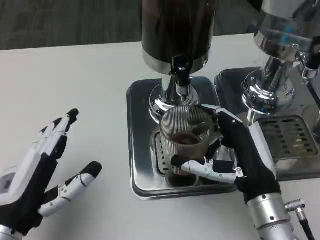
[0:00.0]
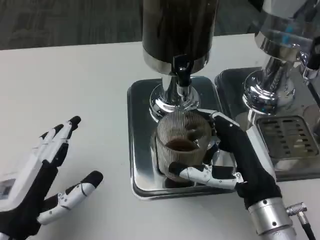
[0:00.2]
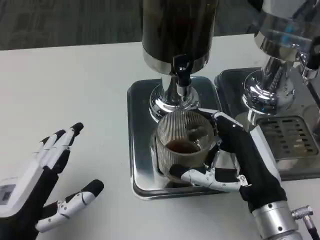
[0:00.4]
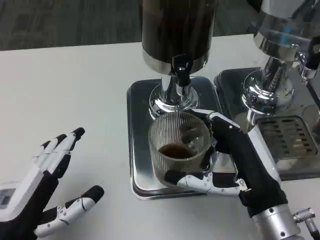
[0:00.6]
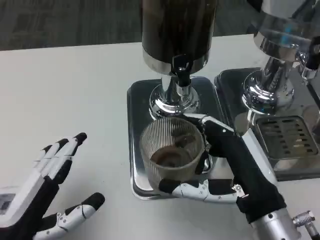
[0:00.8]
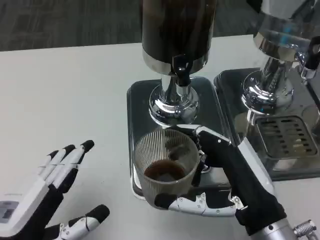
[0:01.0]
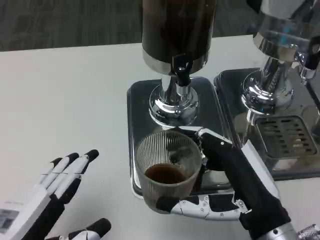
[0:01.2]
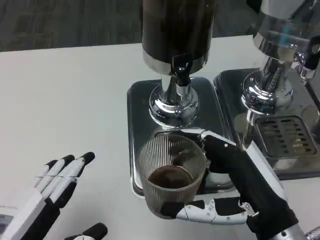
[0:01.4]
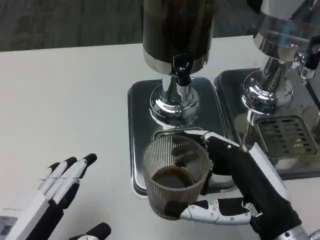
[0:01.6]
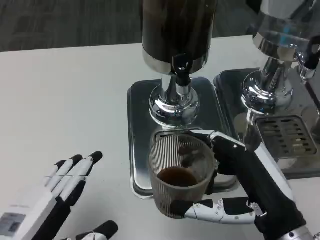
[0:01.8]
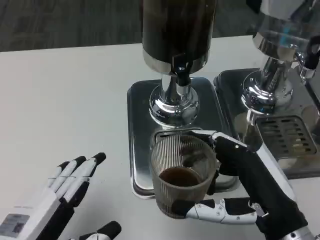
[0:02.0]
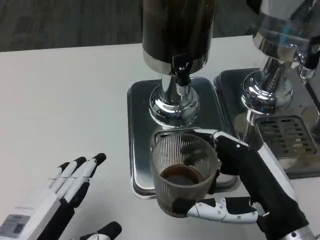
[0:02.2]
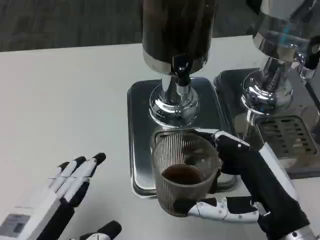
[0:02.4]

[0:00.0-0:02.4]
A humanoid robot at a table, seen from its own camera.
Task of the whole recording: Grasp the cup under the faucet to collect the drink, then remove the cup.
0:00.0 to 0:01.2: Both hands travel together backward, approximately 5 cm.
0:01.2 to 0:02.4: The hands stay close to where they were, moving slightly.

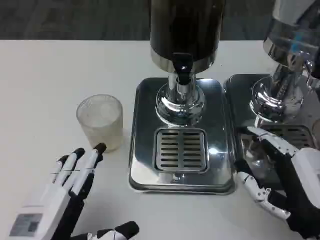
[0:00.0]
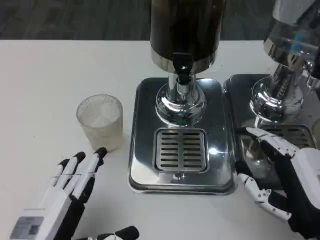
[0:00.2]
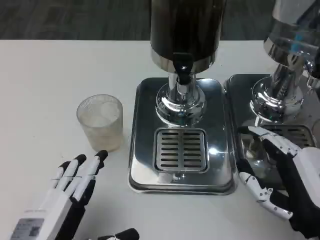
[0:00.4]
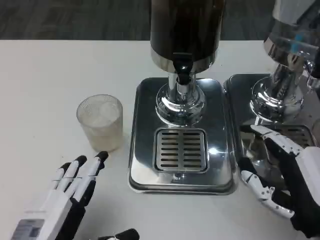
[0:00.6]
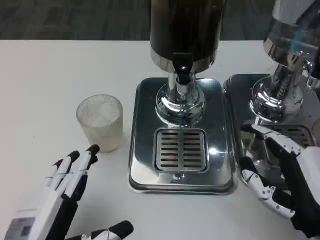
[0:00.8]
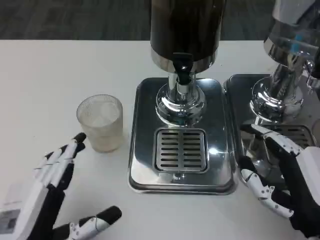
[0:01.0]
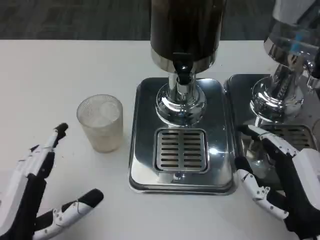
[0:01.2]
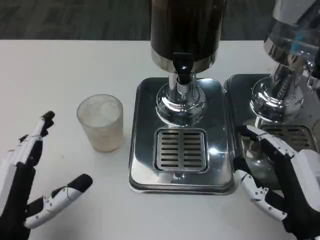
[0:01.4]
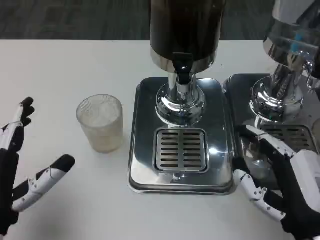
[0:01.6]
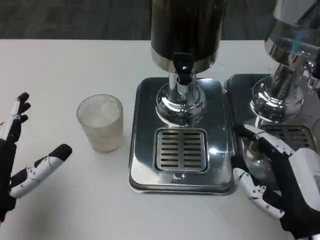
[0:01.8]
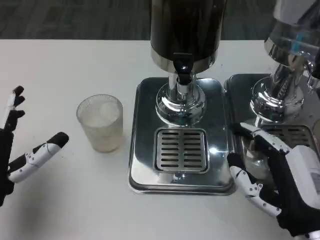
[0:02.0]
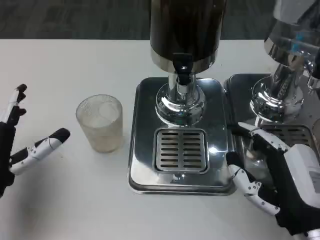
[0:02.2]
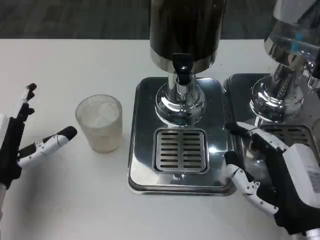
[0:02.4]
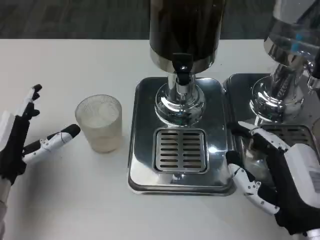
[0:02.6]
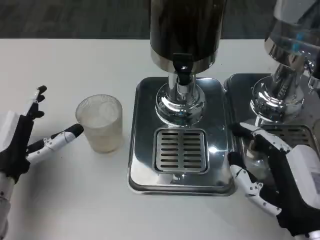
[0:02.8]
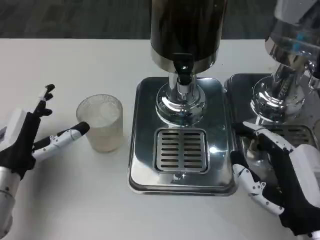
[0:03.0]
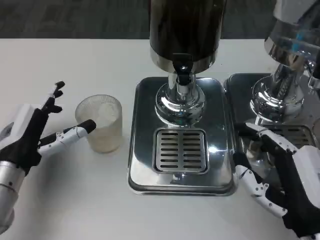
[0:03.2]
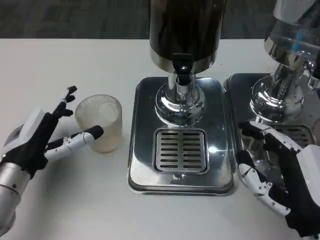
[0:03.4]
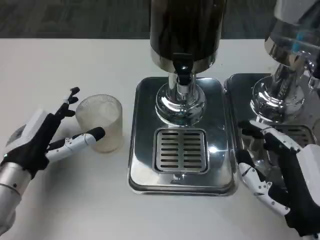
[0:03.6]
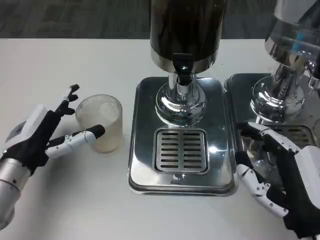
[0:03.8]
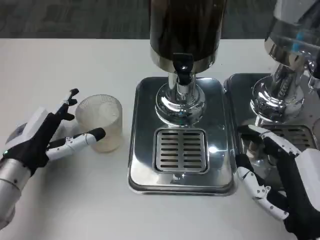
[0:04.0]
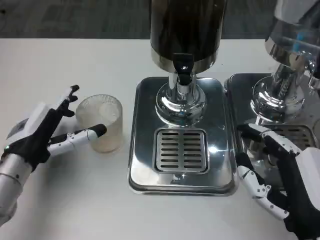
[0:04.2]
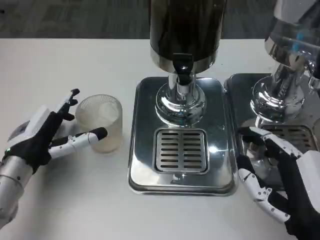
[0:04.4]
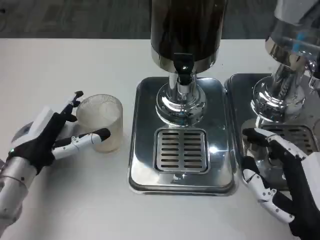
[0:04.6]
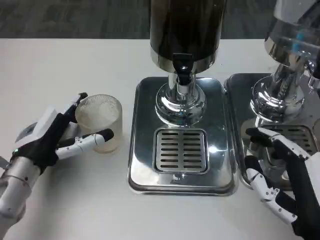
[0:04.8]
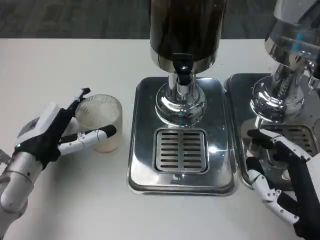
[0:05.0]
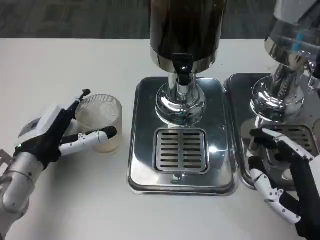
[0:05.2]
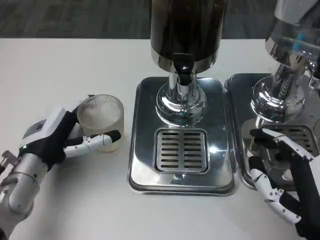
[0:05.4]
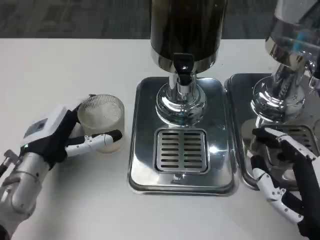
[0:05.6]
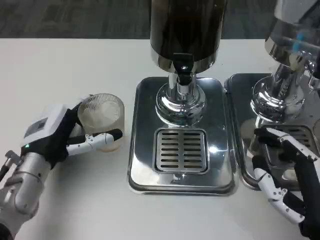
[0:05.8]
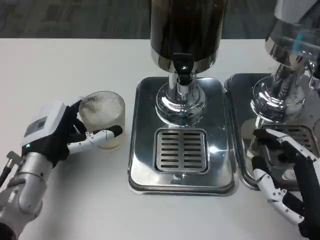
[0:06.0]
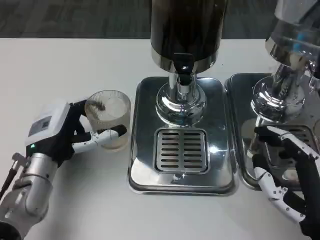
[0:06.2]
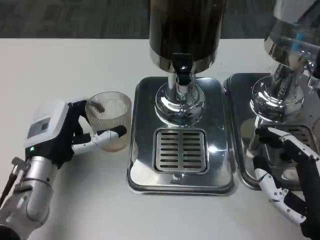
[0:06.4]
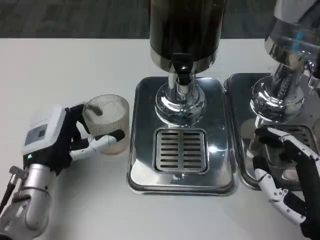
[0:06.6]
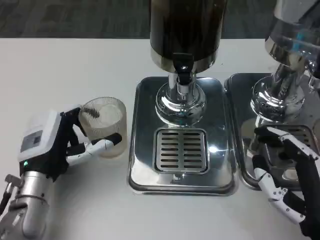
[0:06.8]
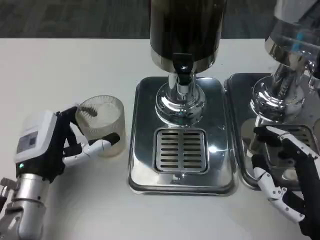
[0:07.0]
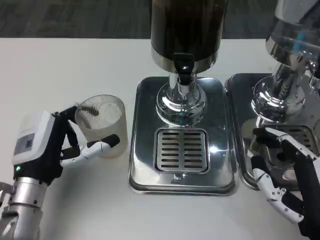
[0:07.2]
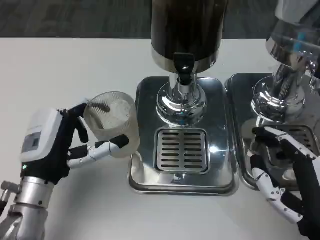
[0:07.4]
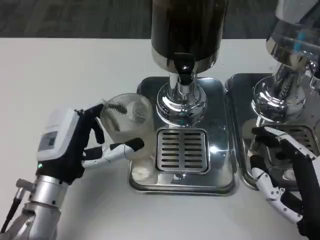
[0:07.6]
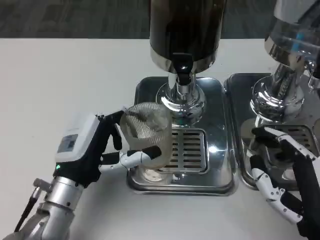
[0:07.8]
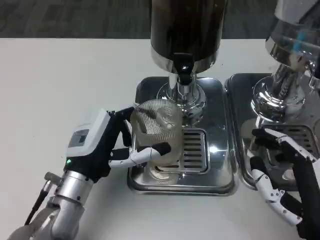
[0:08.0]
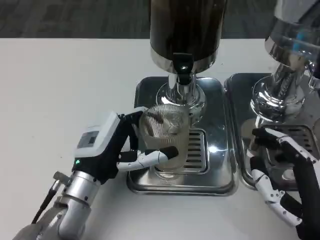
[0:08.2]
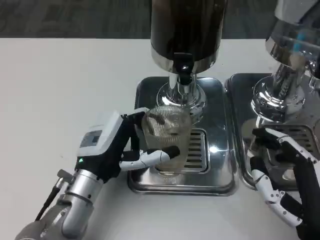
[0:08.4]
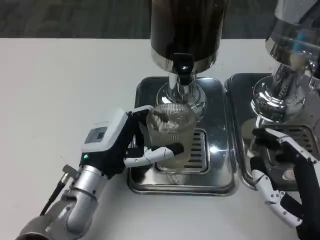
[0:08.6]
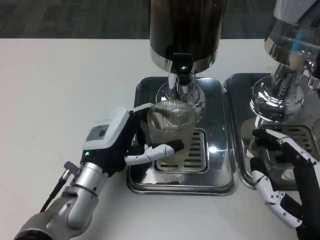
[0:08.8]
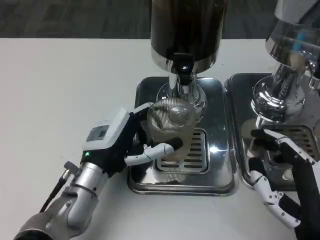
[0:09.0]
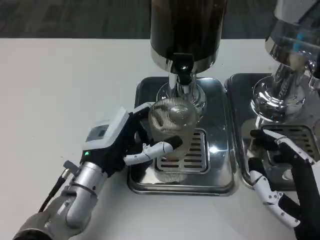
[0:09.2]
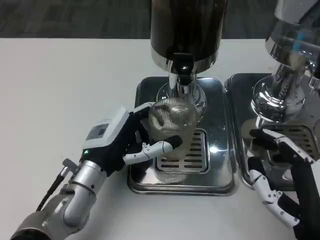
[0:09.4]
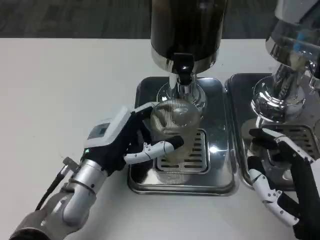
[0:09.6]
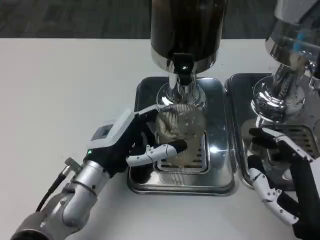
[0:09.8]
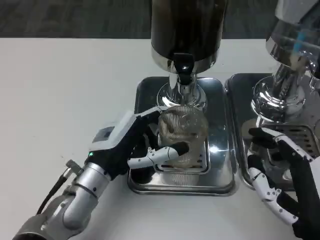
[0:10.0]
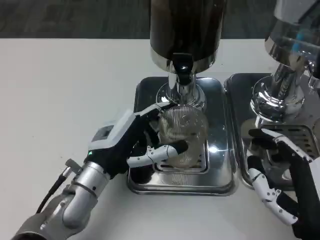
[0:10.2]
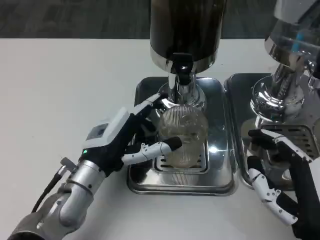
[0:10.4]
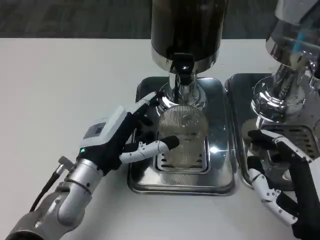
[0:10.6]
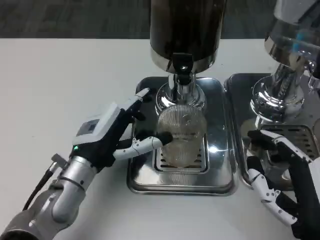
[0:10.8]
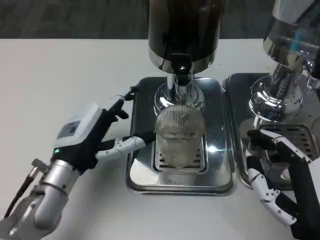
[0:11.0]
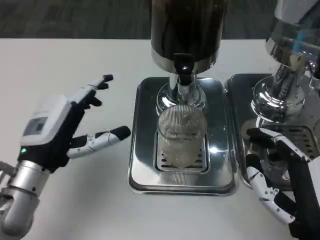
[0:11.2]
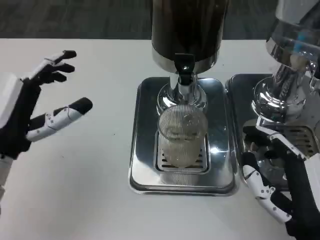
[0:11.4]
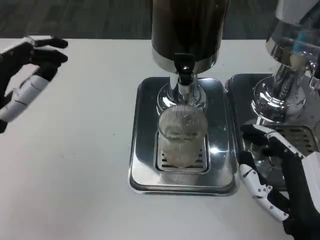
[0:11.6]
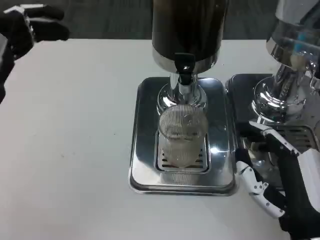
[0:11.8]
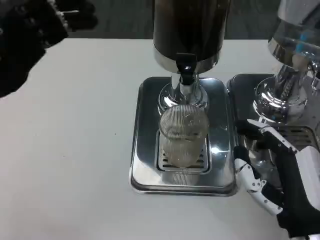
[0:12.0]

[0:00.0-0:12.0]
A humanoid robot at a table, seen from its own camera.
Task of the whole recording: Grasp the cup under the faucet to collect the drink, then remove the cup.
0:00.0 to 0:01.6: The left hand shifts by approximately 5 cm.
0:01.6 to 0:03.0: The left hand moves forward, roughly 10 cm.
0:03.0 to 0:06.0: The hands stay close to where they were, moving slightly.
0:07.6 to 0:09.0: The left hand shifts by some 5 cm.
0:09.0 to 0:10.4: The hands move only a little.
0:10.4 to 0:12.0: The left hand is displaced upward and to the left by about 20 cm.

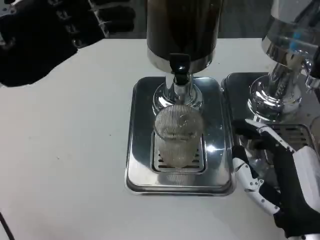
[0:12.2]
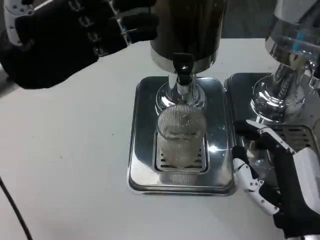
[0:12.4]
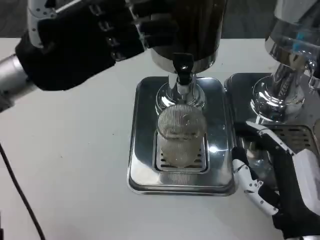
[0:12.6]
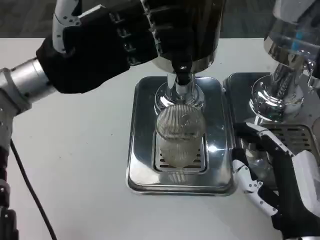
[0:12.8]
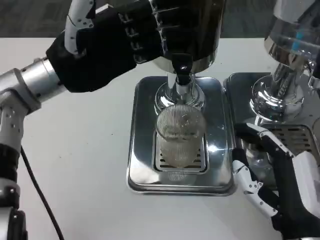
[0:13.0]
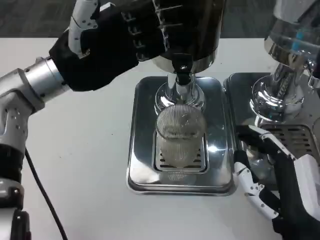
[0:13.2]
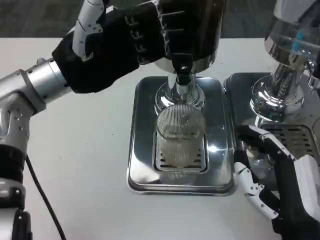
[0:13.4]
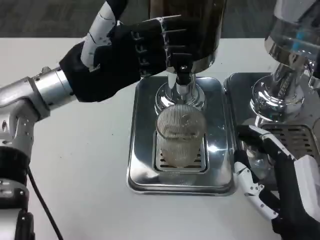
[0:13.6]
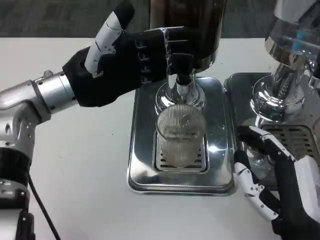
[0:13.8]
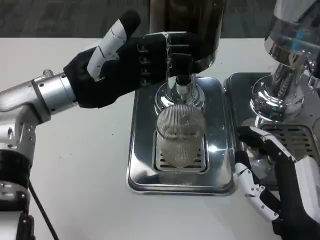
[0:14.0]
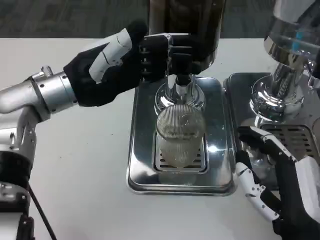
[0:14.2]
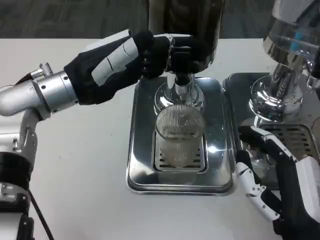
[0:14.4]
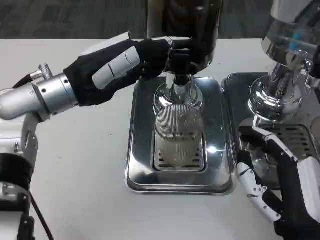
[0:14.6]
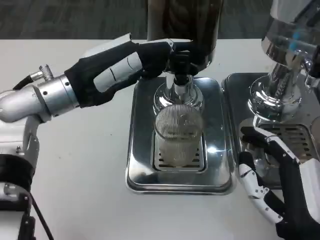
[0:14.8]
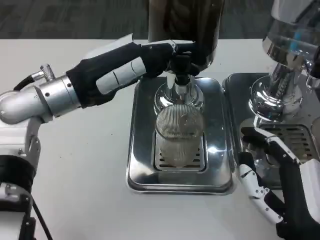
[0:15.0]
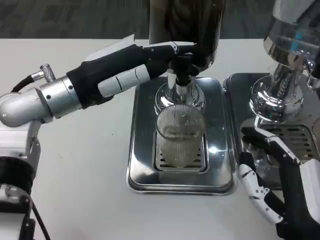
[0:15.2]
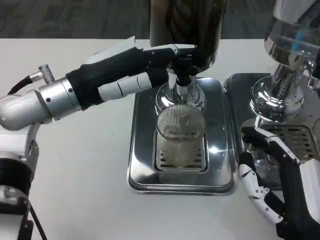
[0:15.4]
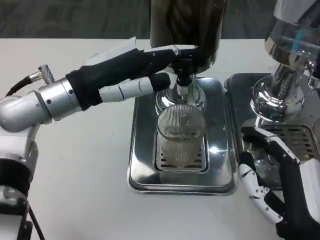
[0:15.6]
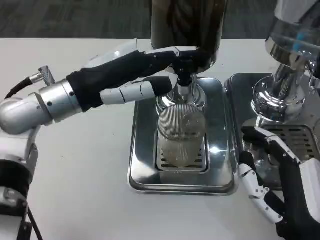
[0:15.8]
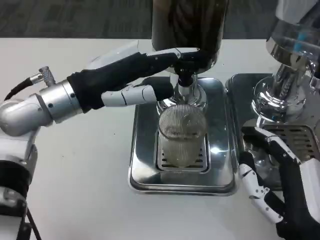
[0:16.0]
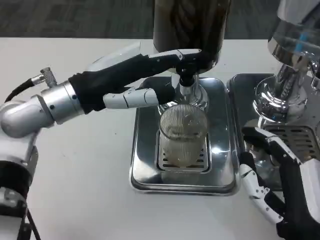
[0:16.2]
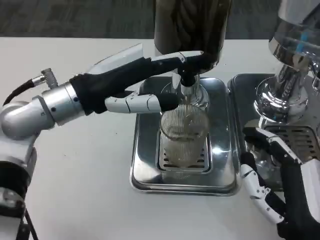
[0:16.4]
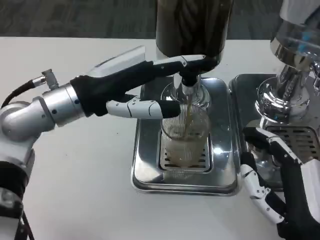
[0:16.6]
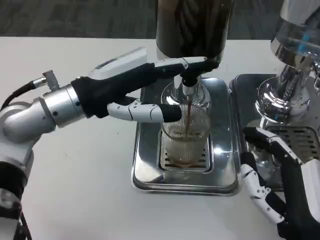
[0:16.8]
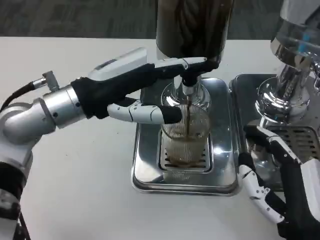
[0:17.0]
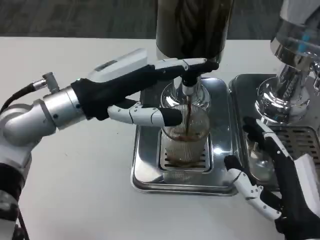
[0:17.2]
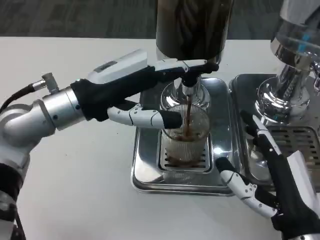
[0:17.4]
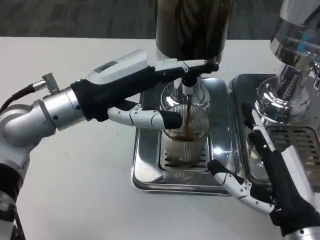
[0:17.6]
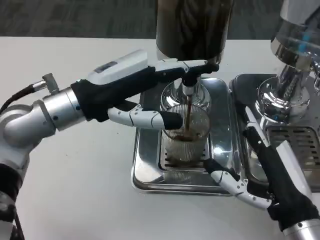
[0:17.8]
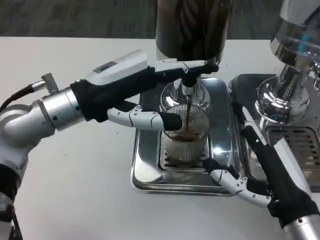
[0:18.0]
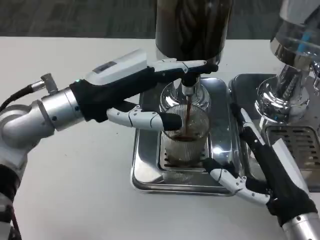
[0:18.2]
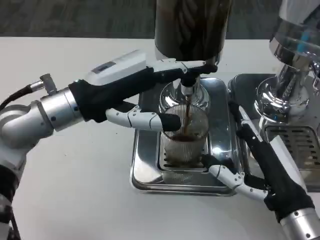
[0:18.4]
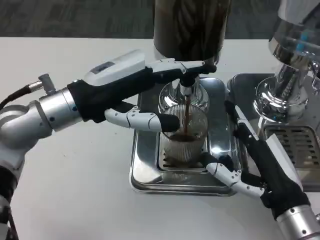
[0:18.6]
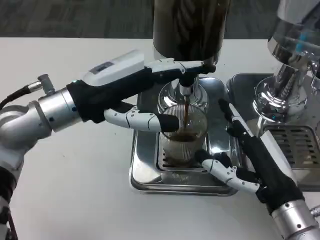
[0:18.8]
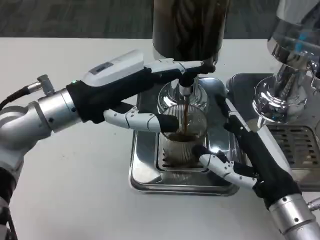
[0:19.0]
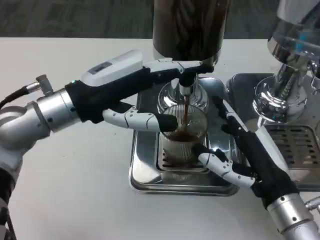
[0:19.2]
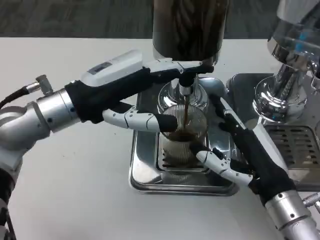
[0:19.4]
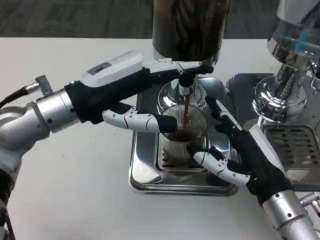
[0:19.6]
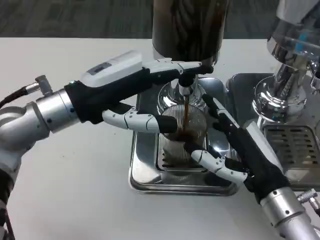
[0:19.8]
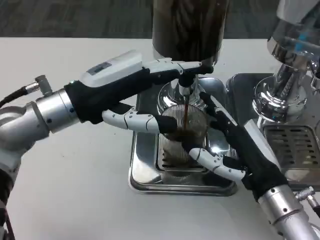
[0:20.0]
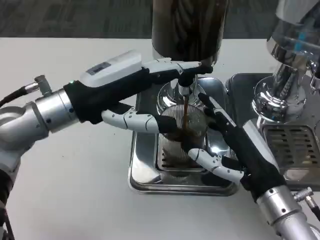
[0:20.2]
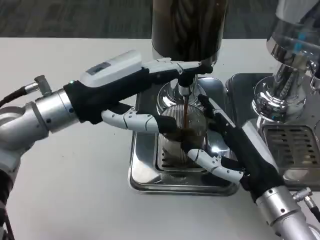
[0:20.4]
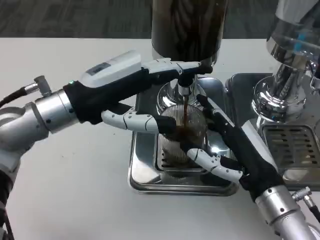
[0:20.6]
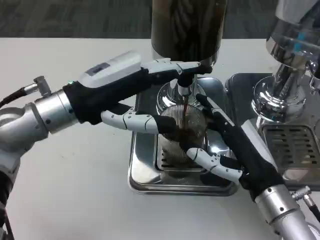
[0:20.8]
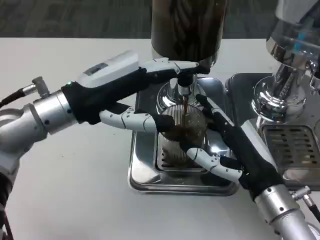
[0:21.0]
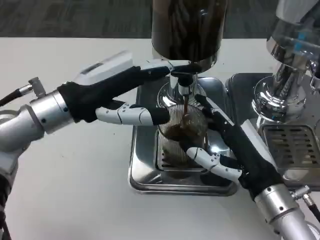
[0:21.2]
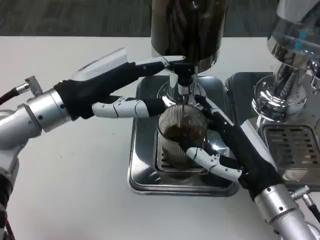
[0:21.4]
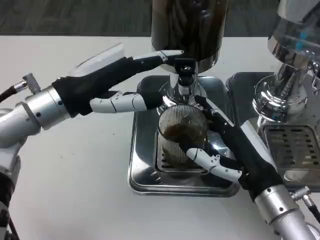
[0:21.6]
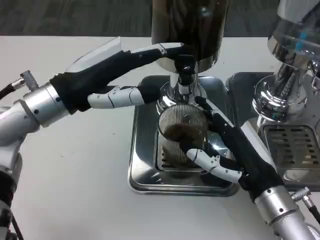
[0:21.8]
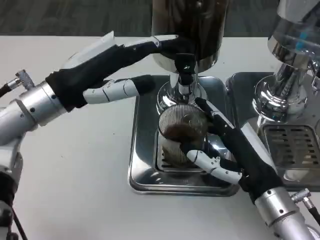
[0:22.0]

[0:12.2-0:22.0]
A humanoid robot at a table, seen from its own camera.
Task of the whole recording: Grasp the cup under the faucet to collect the drink, then remove the cup.
0:12.2 to 0:13.6: The left hand heads to the right, covering about 5 cm.
0:19.2 to 0:20.6: The hands move only a little.
